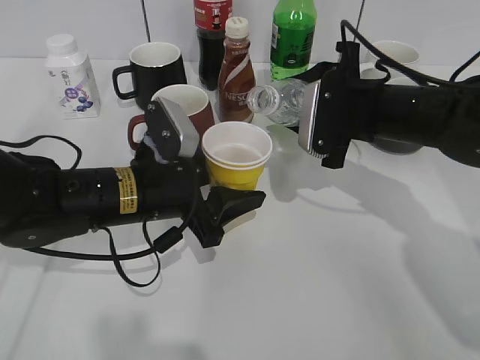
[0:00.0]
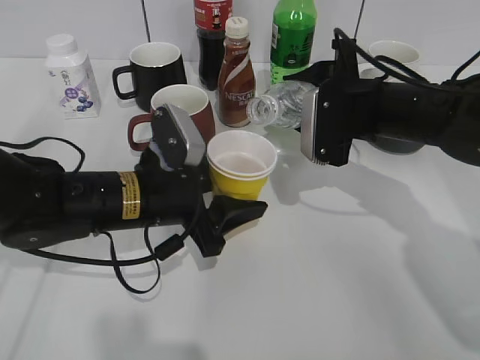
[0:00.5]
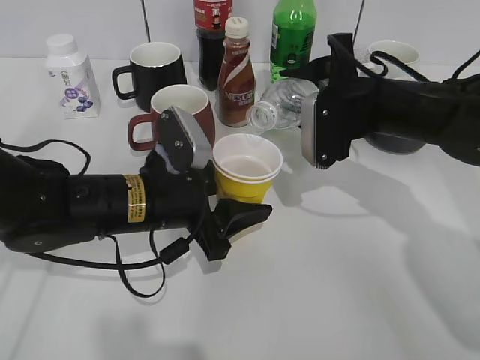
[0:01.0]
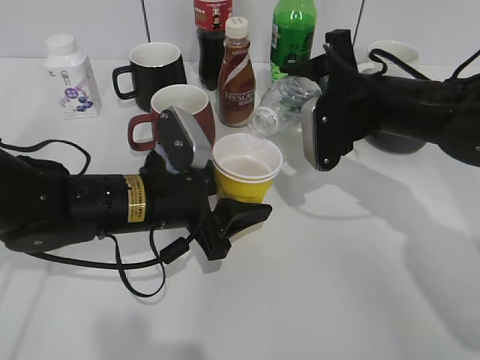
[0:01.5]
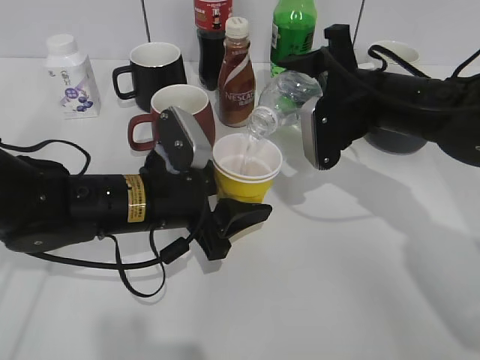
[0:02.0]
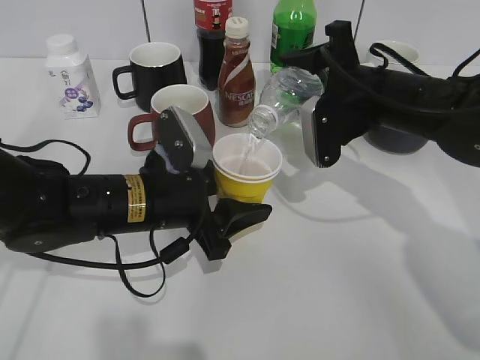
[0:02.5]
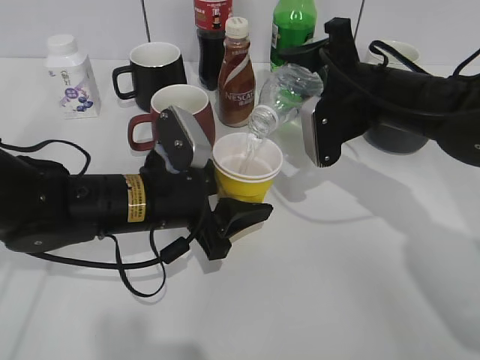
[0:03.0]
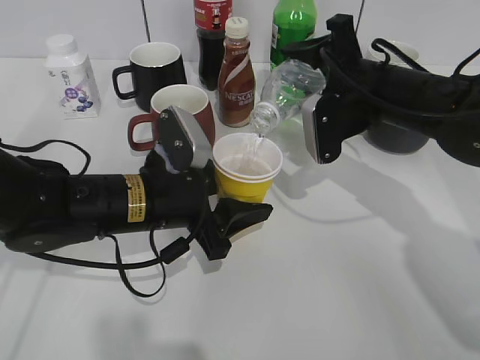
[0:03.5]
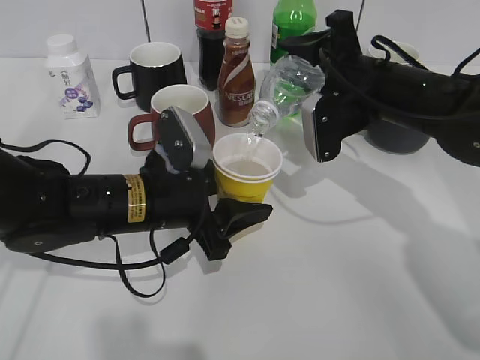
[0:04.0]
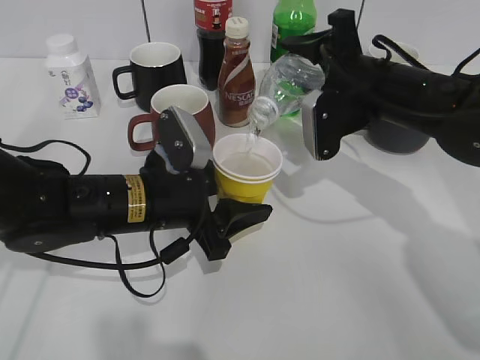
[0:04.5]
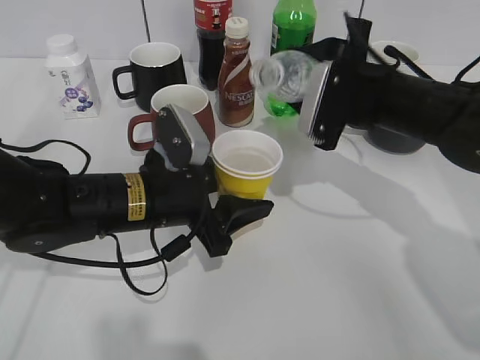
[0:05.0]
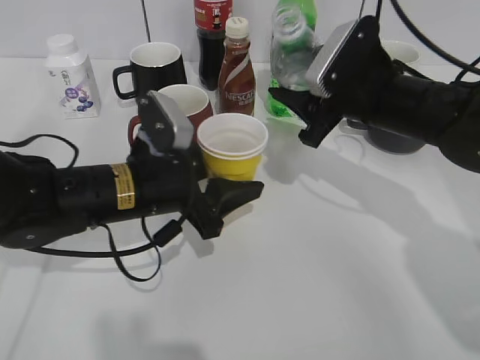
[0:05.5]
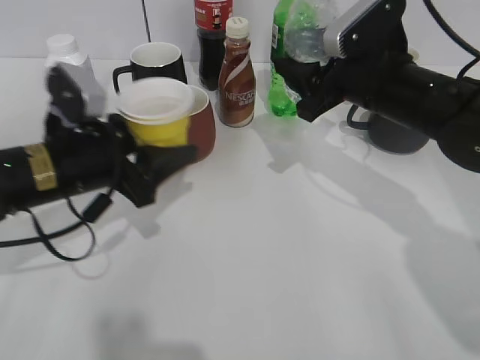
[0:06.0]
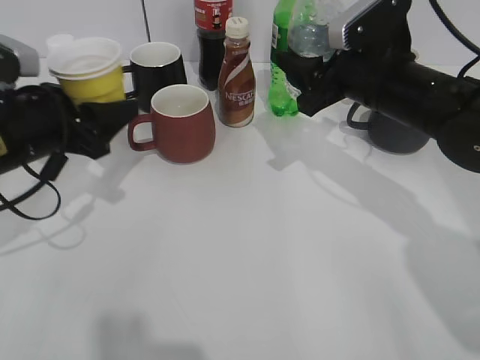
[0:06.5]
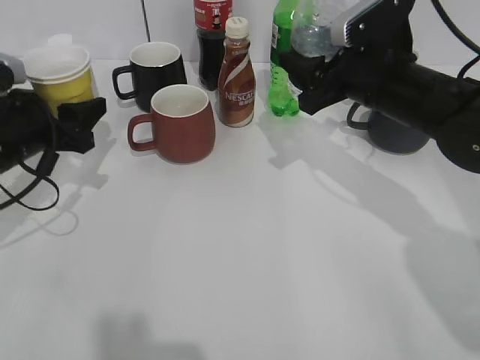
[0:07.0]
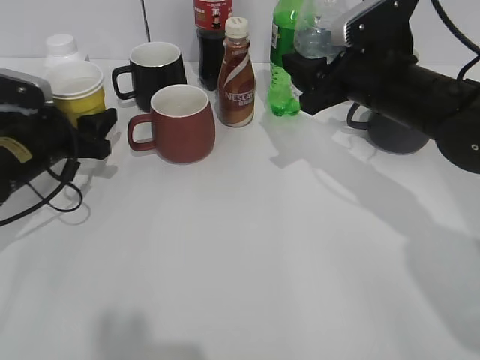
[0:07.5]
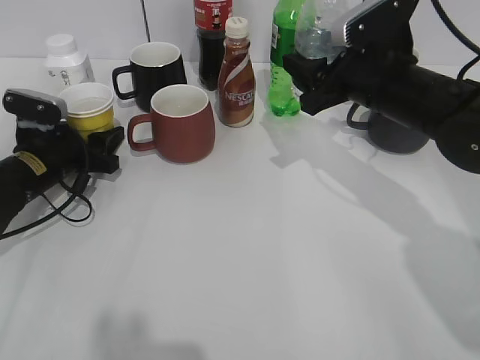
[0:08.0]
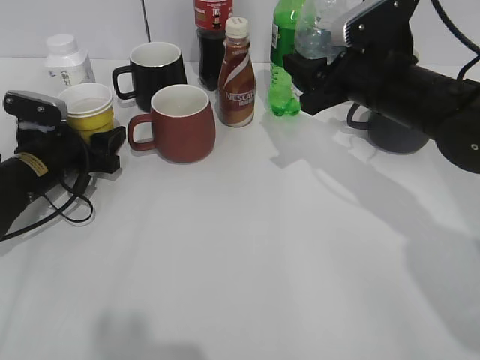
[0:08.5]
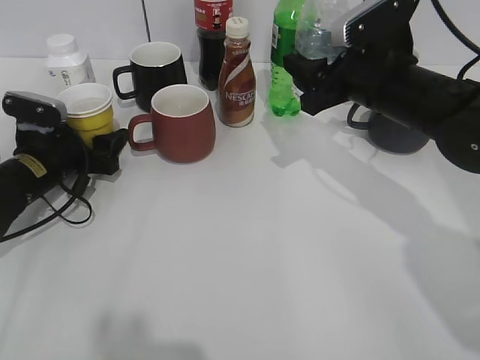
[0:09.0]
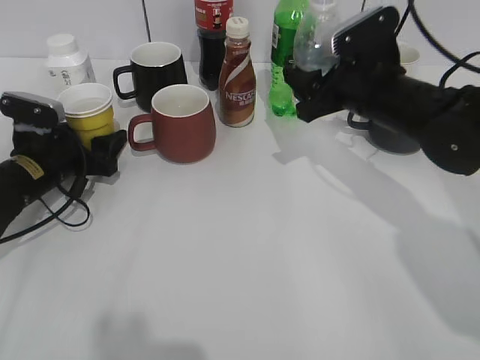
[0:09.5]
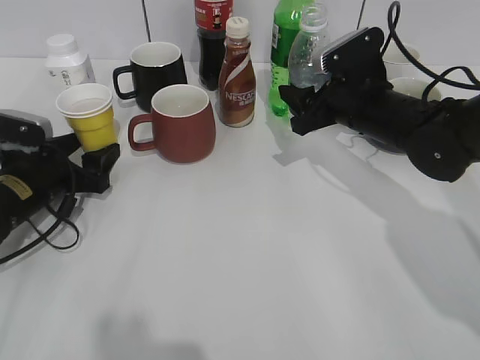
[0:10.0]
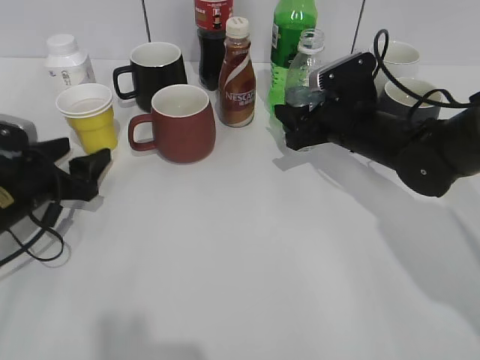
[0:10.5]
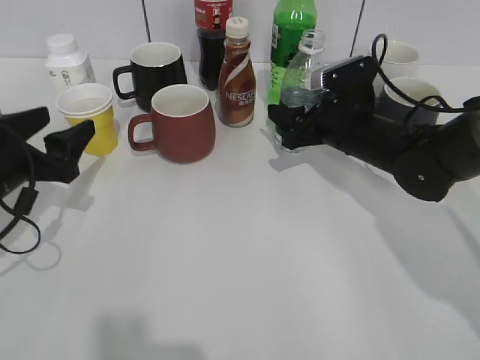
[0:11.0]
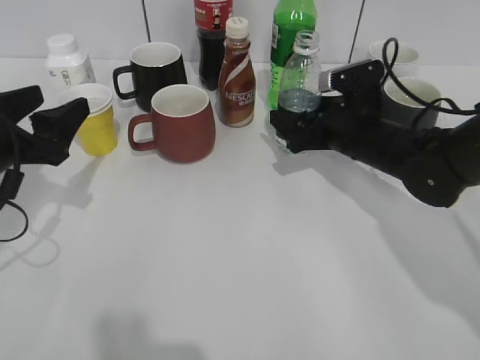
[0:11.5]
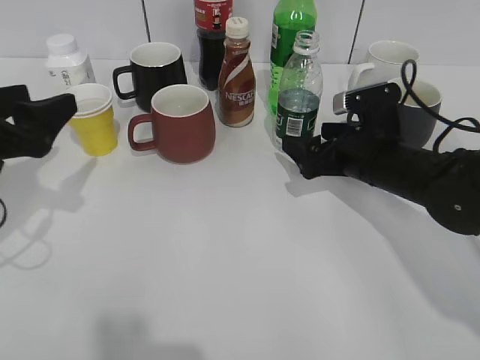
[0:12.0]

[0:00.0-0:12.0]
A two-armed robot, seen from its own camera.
Step, 0:00.0 to 0:05.0: Pour the water from bottle to cup with right gripper.
Step, 0:05.5 to 0:09.0: Place the yellow paper cup on the table with left gripper.
Step, 0:09.5 to 0:11.5: Place the water bottle on the table with right gripper.
0:02.0 to 0:04.0: The grippers move only a little.
0:04.0 to 0:06.0: The left gripper goes approximately 5 cm to the left.
0:06.0 to 0:08.0: The left gripper moves forward, to the left and downward, some 15 cm.
0:08.0 to 0:10.0: The right gripper changes place by roughly 5 cm, while the left gripper opens up.
0:10.0 to 0:12.0: The left gripper shifts roughly 15 cm upward and backward. Meanwhile the right gripper shifts by approximately 5 cm, and opens up.

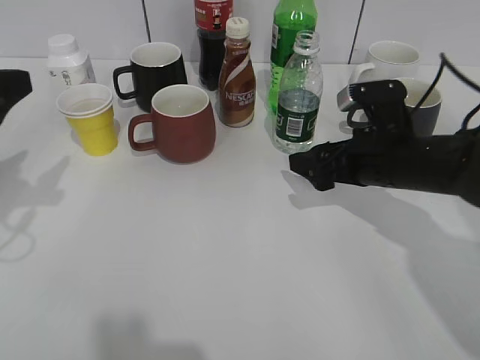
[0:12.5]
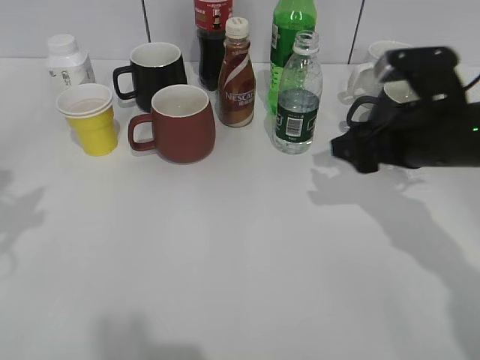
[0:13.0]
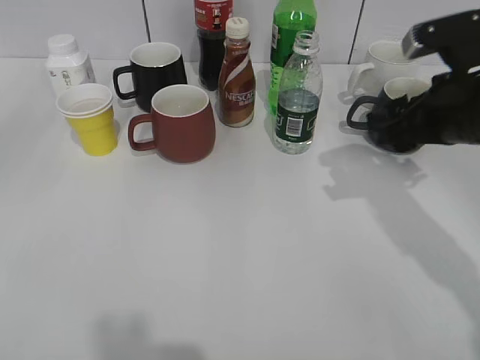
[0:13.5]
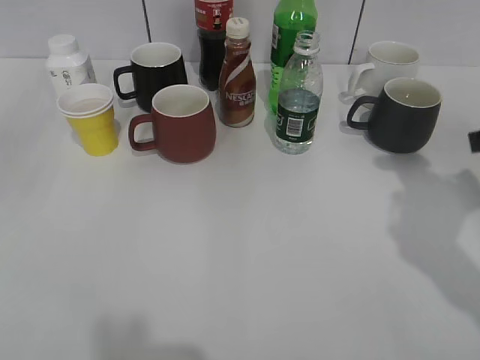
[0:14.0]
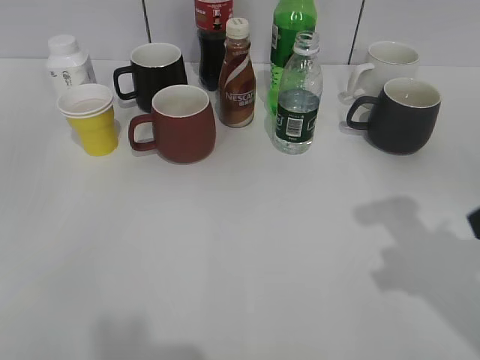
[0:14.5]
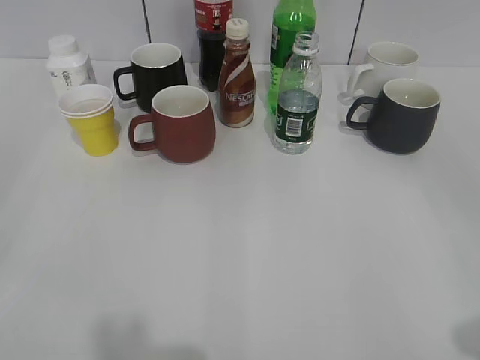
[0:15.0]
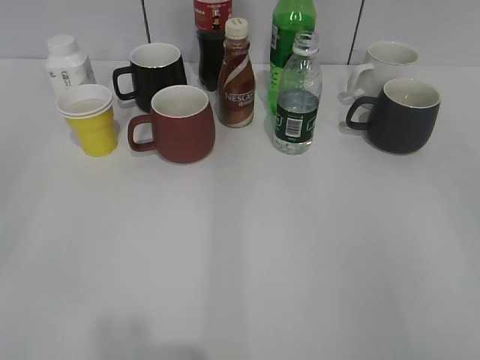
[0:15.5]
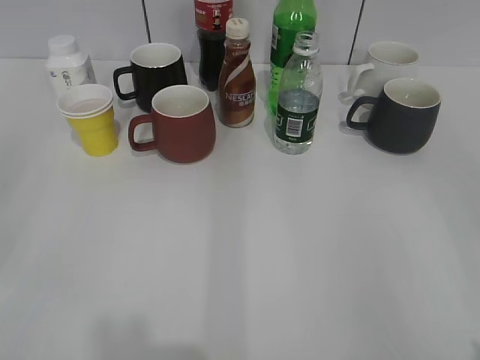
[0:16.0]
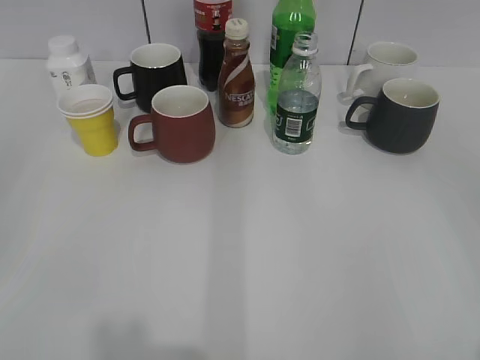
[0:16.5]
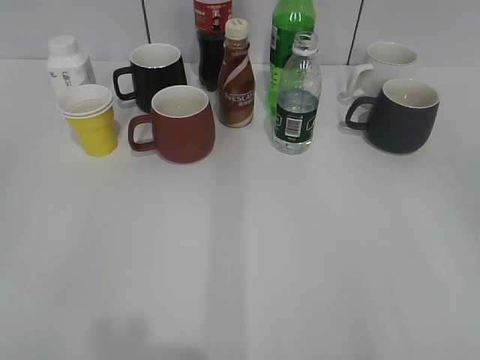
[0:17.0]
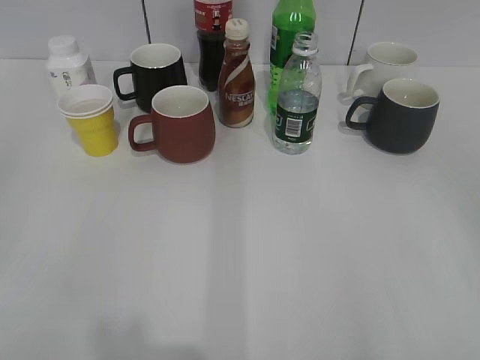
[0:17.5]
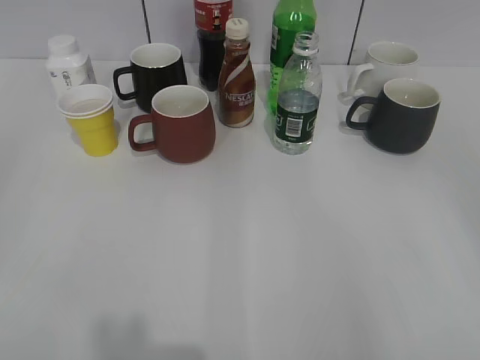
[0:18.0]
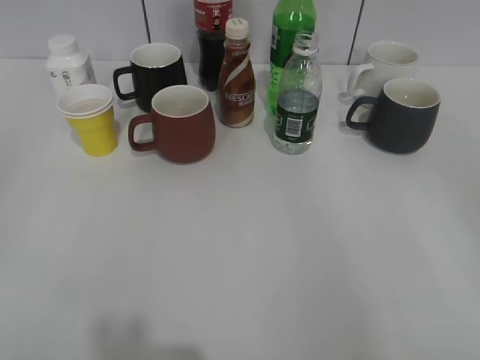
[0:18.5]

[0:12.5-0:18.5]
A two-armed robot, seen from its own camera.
0:12.5 to 0:14.5: The right gripper heads backward, upward and to the right, covering some 20 cm, and closes its fingers, while the left gripper goes approximately 20 cm backward and upward.
0:14.5 to 0:16.5: The right gripper travels backward and to the right by some 20 cm.
